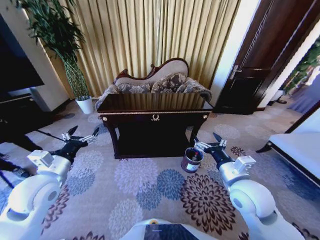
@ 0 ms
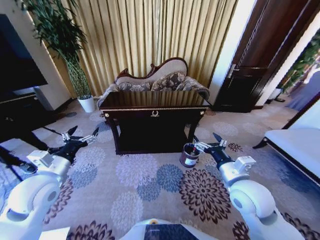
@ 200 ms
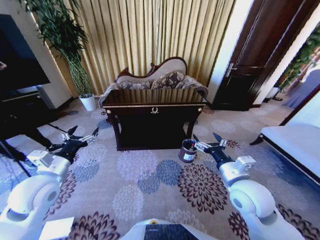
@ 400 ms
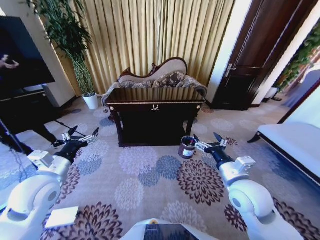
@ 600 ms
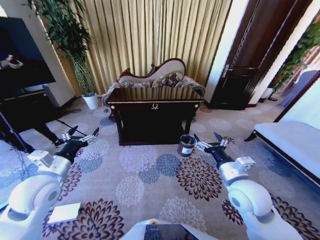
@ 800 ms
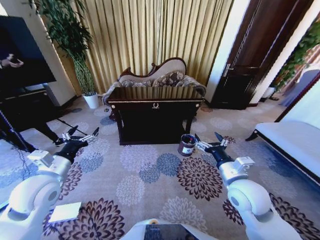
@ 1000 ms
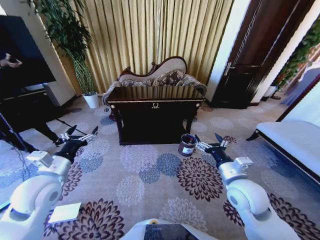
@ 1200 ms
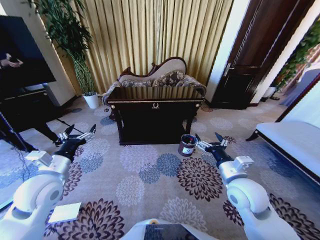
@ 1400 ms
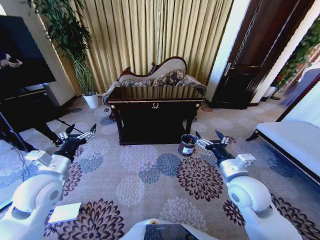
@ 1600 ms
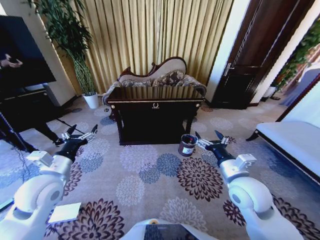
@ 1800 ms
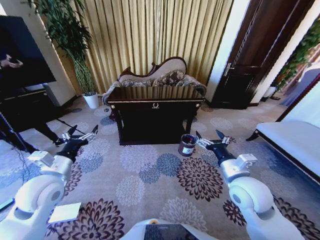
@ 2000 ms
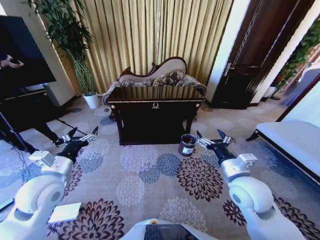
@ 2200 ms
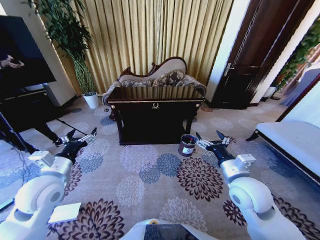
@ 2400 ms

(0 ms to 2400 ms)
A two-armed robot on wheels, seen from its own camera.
Task of the whole recording: Move to the front of the table and place the trash on the table into the trash bin.
1200 ms - 2400 ms: There are only small adjustments of the grippers.
